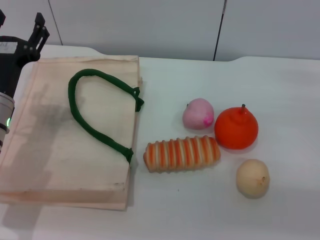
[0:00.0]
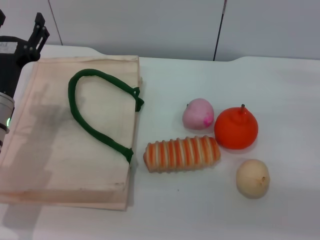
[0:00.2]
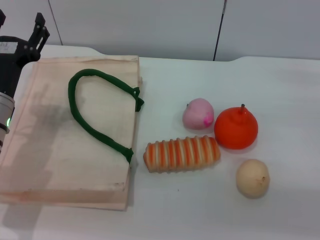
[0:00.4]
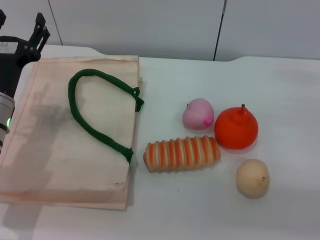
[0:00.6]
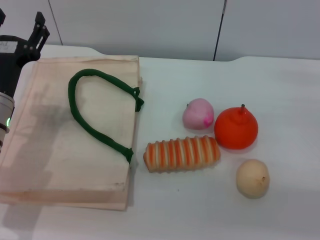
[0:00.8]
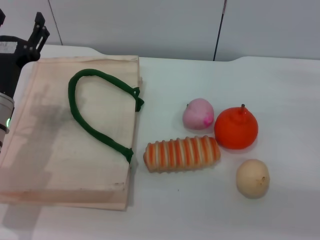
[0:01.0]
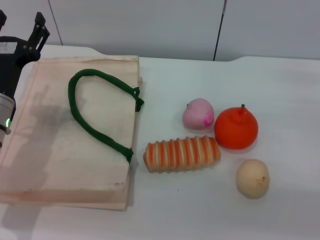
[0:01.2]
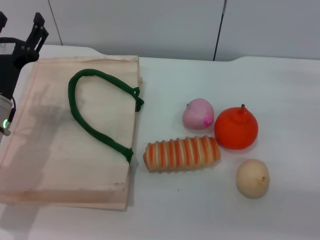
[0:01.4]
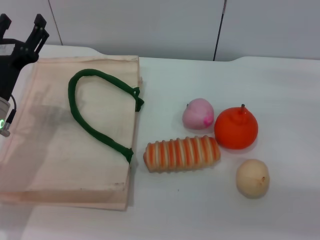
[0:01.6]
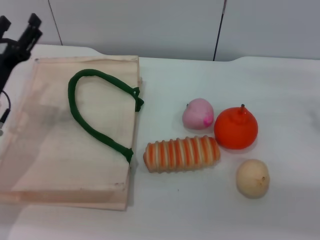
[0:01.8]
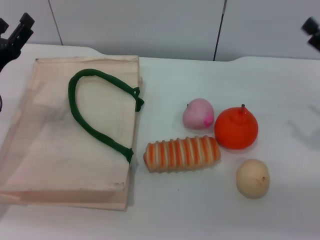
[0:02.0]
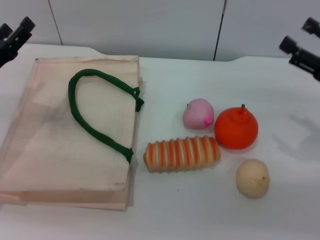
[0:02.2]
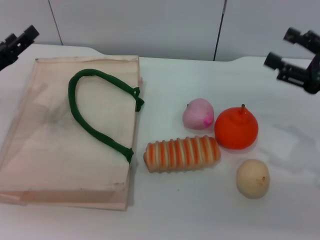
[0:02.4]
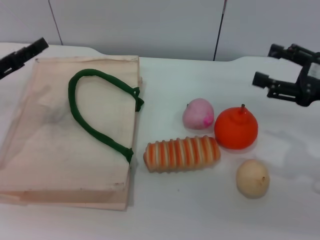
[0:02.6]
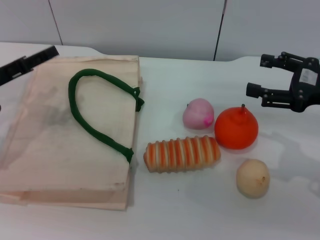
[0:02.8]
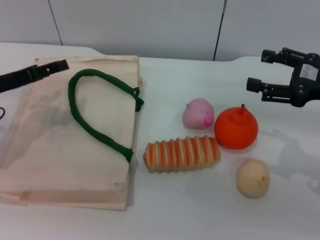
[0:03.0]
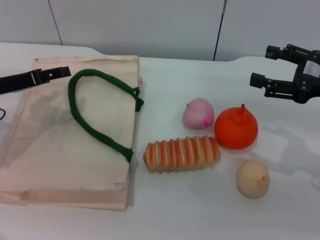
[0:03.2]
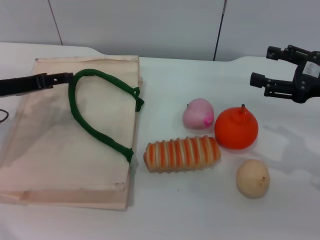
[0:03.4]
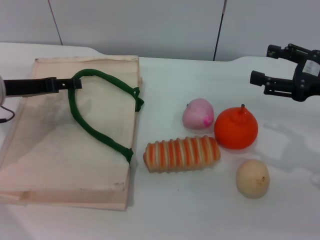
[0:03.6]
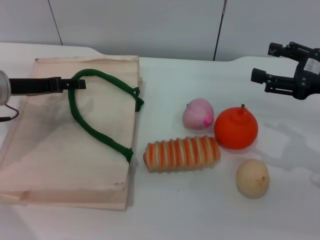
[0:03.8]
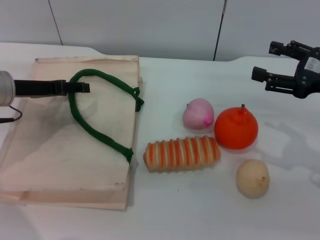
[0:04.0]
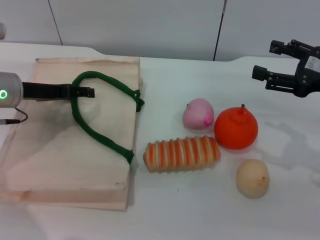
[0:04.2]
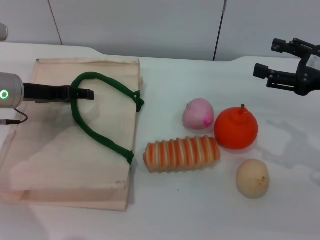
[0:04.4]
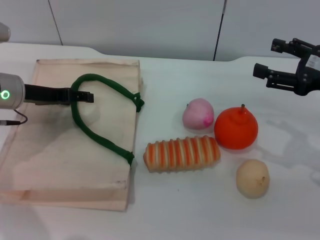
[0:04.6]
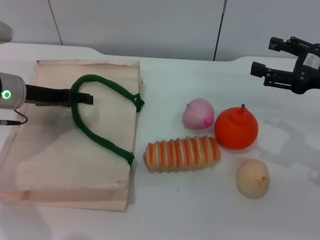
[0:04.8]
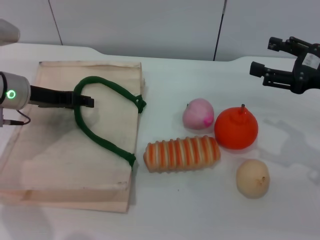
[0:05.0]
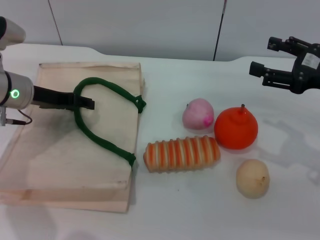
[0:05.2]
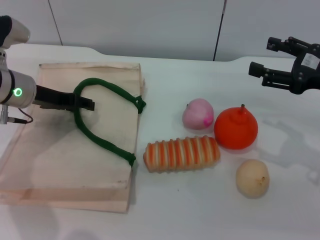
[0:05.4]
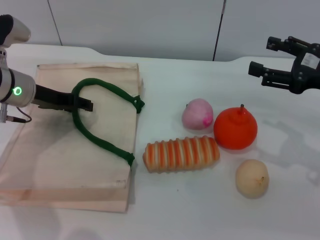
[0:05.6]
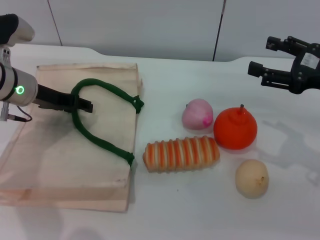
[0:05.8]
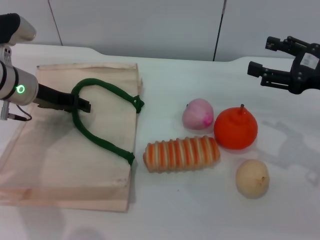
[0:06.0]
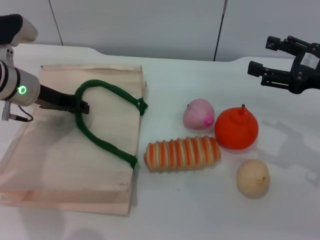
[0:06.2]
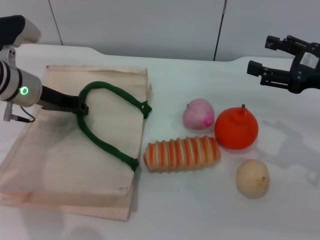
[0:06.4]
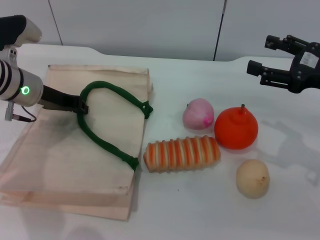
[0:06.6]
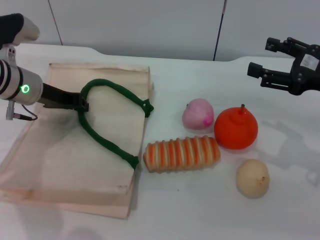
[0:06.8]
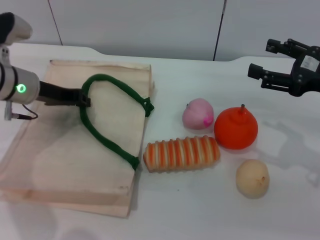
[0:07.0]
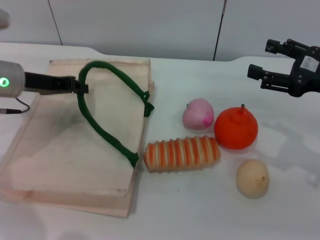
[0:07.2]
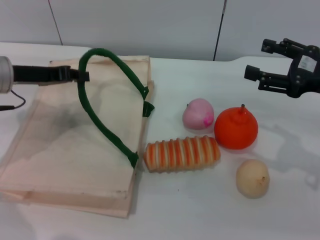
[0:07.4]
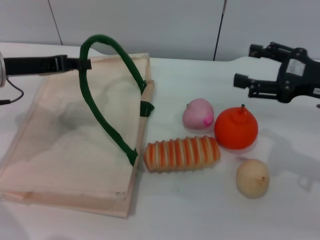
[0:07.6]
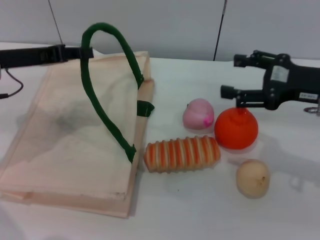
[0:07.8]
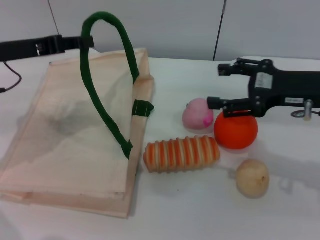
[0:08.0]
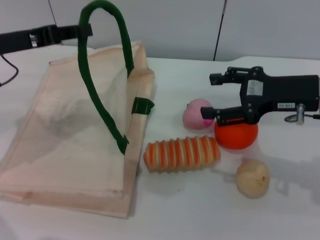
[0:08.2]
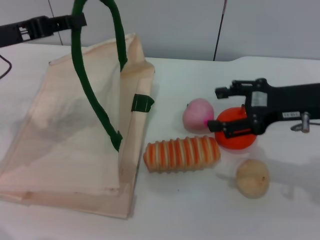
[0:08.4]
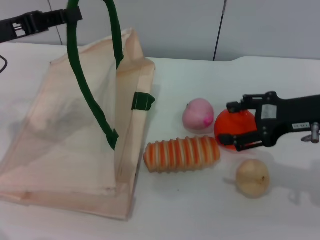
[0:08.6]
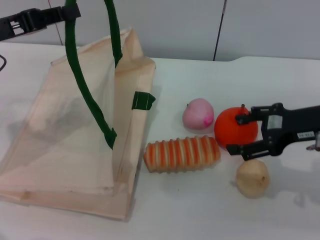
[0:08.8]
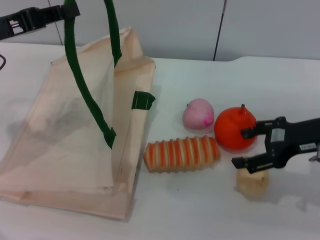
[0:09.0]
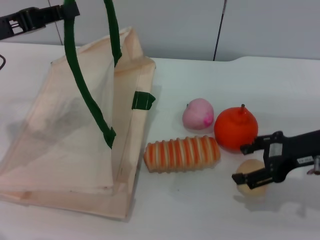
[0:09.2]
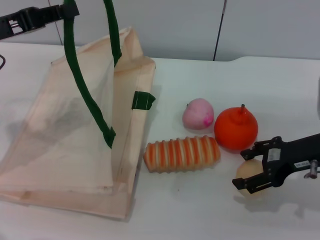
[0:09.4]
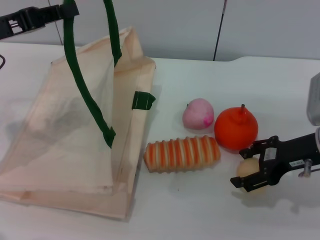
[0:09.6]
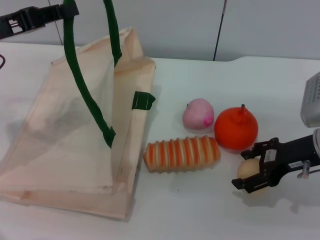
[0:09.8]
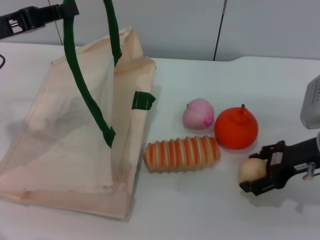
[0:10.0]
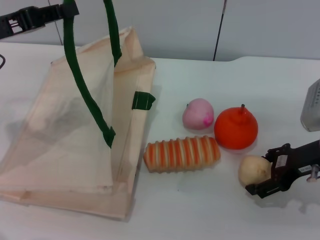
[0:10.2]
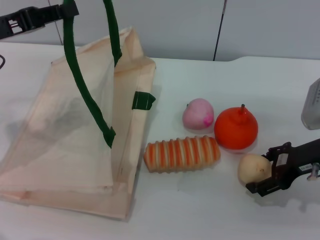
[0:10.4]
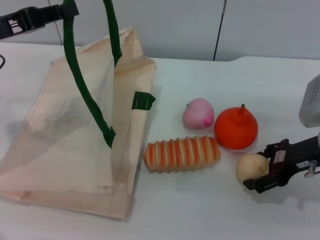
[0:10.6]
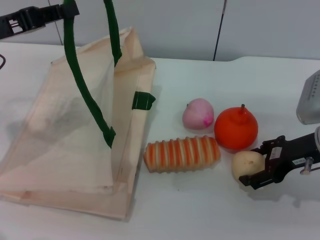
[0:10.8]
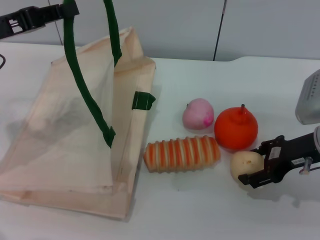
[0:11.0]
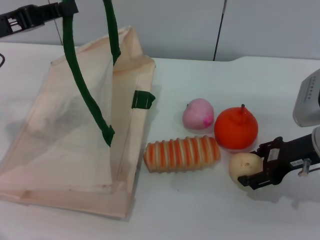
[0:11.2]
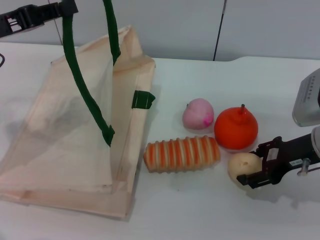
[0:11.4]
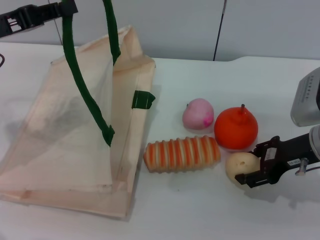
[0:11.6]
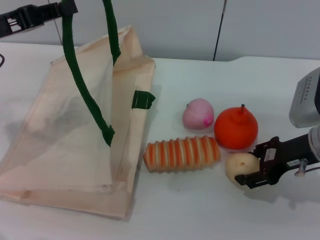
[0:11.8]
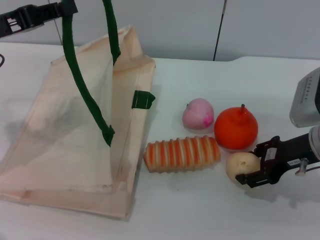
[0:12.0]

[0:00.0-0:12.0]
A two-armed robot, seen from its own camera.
Task of the whole recording: pick up the egg yolk pastry from the table and place it in the white handbag.
Step, 0:00.0 to 0:07.2: Lift the woven bag with the left gripper to open it.
0:00.0 to 0:01.6: The grippers make only small movements.
0:01.6 to 0:03.0: The right gripper shifts some 5 cm upward. The left gripper heads to the left, covering about 5 cm.
0:03.0 to 0:04.4: The left gripper shifts by some 5 cm.
0:04.4 to 0:06.0: The grippers stay close to where they were, moving slightly.
0:06.0 to 0:07.6: The left gripper shifts by about 5 cm, and closes its fingers.
0:09.0 to 0:10.4: The grippers move only a little.
0:10.4 to 0:12.0: The right gripper closes.

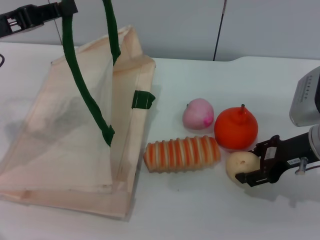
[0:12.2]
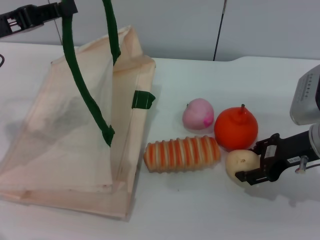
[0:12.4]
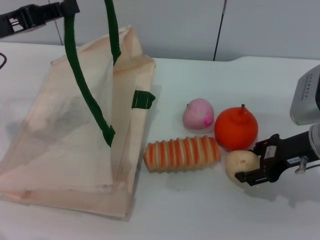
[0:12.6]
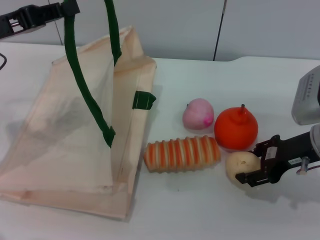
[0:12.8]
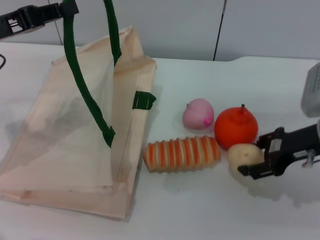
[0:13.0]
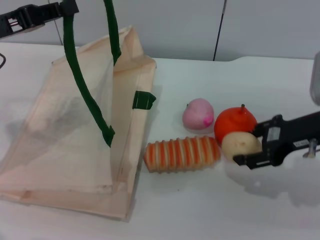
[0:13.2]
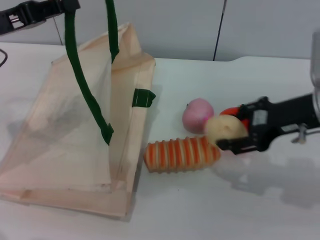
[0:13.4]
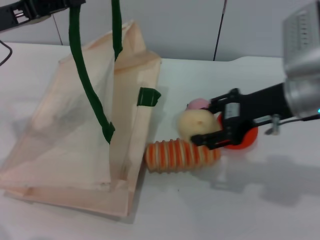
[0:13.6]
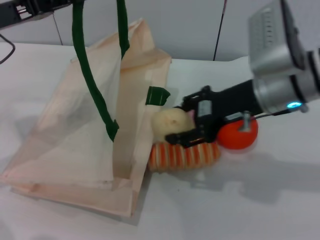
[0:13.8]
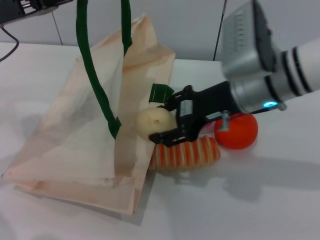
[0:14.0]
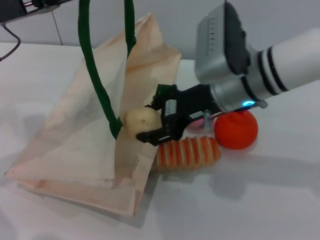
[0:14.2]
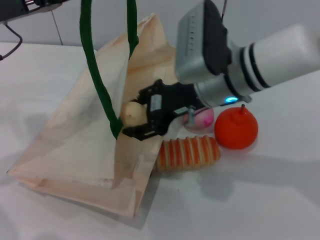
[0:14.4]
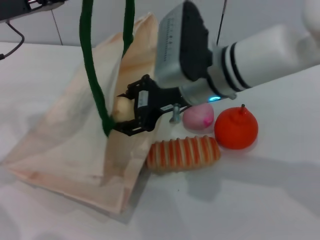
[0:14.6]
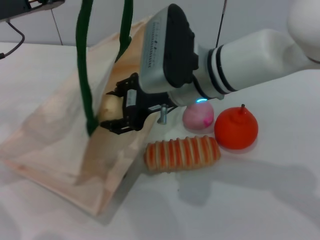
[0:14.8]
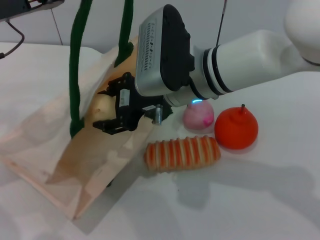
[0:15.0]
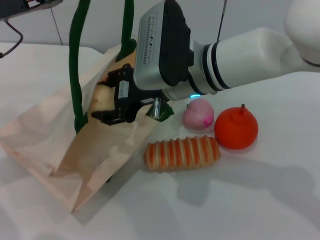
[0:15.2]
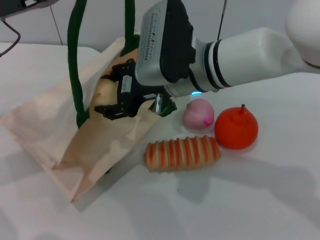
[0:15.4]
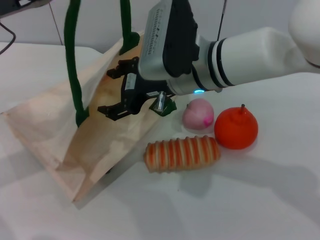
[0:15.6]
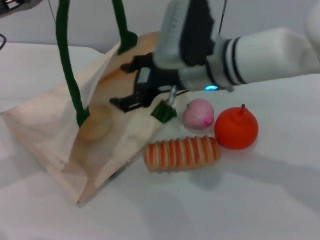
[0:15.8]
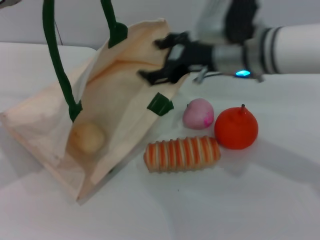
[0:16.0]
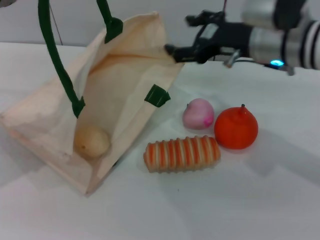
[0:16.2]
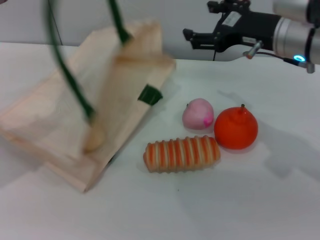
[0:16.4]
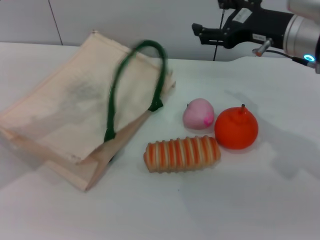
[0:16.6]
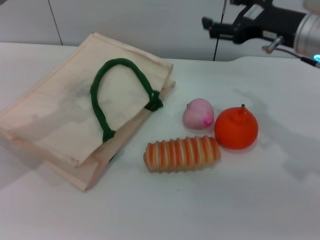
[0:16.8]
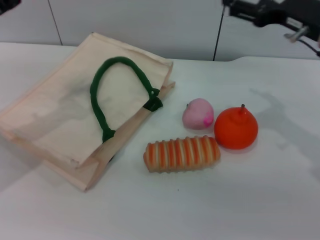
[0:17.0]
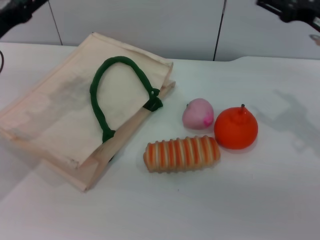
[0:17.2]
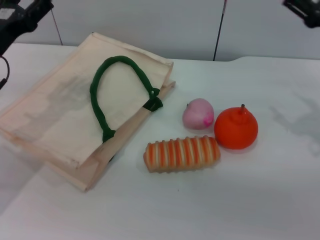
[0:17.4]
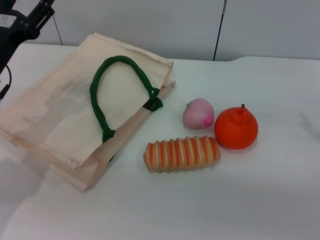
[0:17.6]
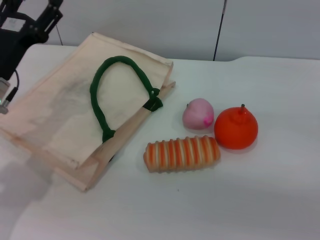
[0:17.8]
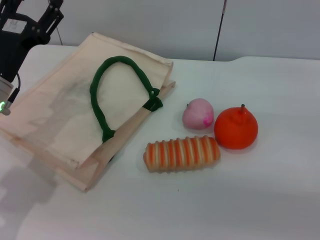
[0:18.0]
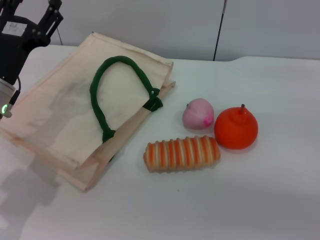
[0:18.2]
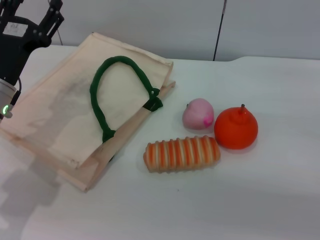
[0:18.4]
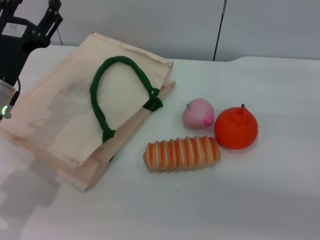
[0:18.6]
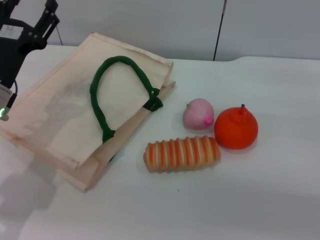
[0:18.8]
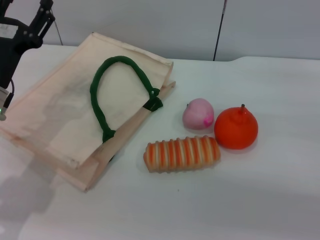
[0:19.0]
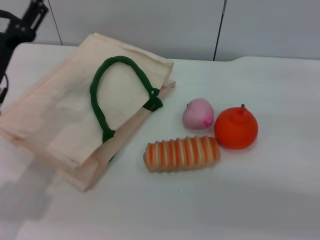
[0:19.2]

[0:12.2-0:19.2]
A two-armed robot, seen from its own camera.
Task of the whole recording: pick up the egg yolk pastry from the table and place it in the white handbag.
Step, 0:13.4 to 0:16.0: Place the egg yolk pastry into the woven bag with the right gripper.
Step, 0:16.2 to 0:16.8: Lower the woven bag with the left gripper to close it.
0:12.2 to 0:13.6: The right gripper goes approximately 10 cm upward and to the left.
0:13.6 to 0:15.0: The right gripper travels to the left by roughly 15 cm.
0:15.0 to 0:16.4: The right gripper moves to the right, about 15 cm, and opens up.
0:16.4 to 0:17.8: The left gripper goes approximately 10 cm downward and to the right, and opens. Meanwhile the right gripper goes roughly 20 cm to the right, backward and downward.
0:17.8 to 0:19.2: The grippers move only a little.

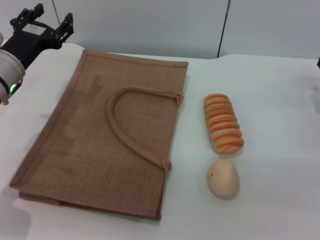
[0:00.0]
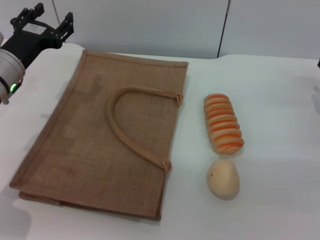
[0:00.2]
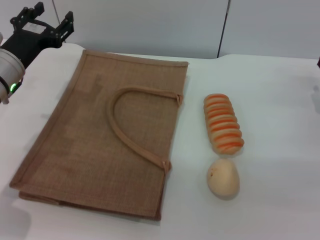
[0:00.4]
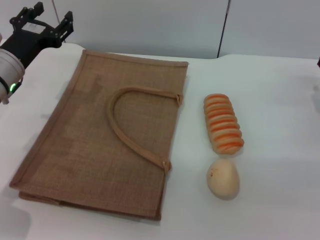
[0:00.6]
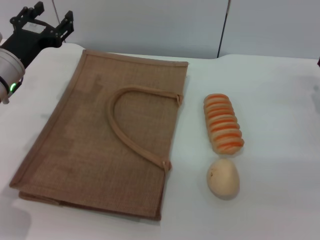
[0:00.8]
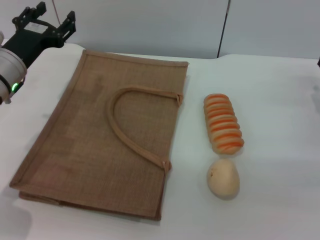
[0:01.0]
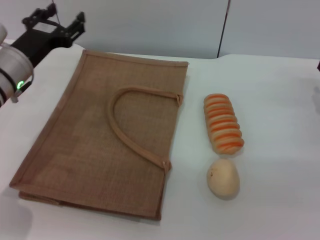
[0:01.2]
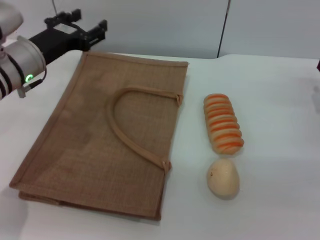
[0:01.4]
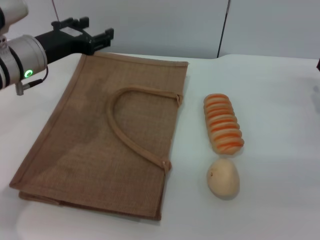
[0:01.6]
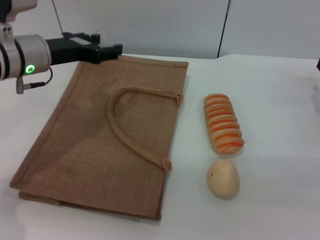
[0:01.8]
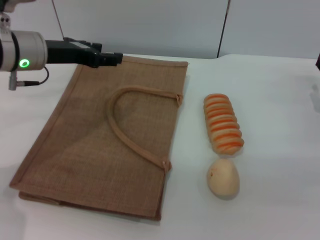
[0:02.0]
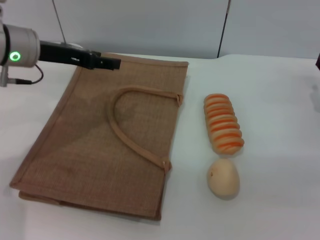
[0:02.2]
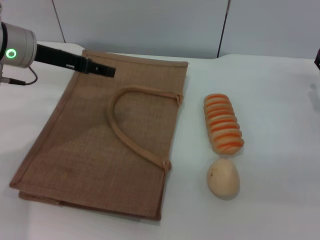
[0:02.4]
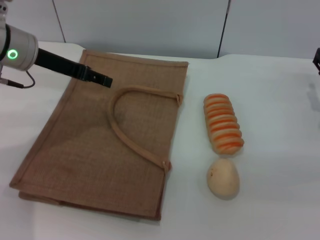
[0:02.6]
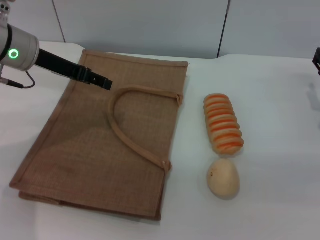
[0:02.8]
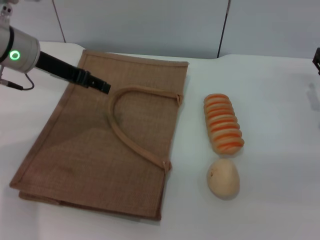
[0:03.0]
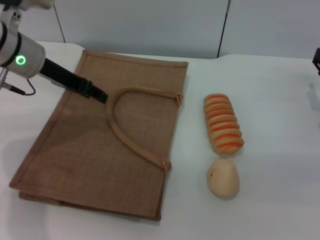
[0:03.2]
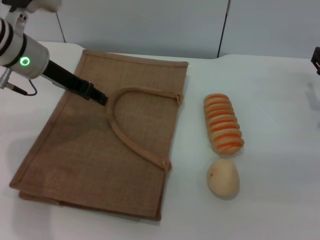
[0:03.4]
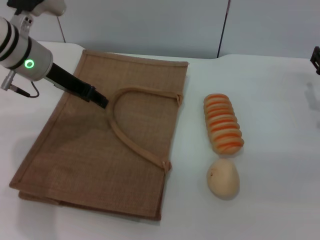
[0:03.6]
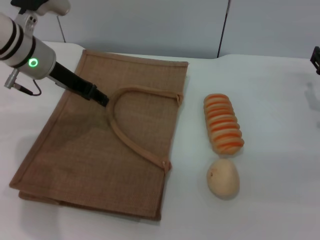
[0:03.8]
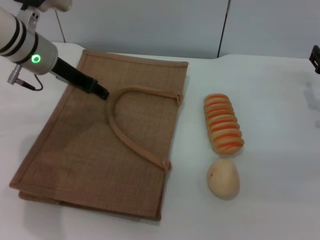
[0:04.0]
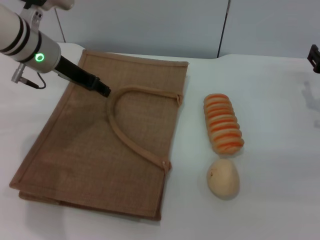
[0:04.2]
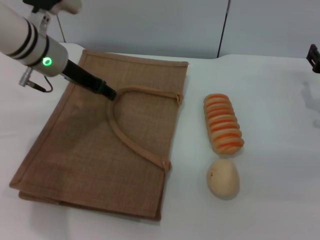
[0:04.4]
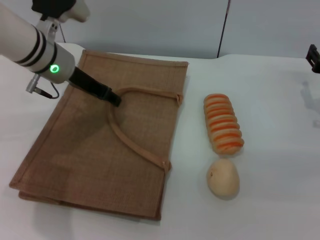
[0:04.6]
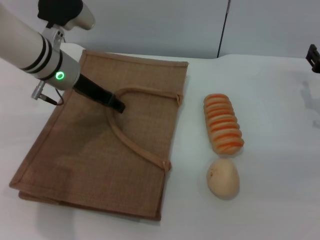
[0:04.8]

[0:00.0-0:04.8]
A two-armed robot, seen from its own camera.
Task of the whole recording: pick up the bread and egg yolk pastry from the table and place it in the brown handbag.
0:03.2 to 0:04.8: The left gripper ends up approximately 5 cm from where it was.
